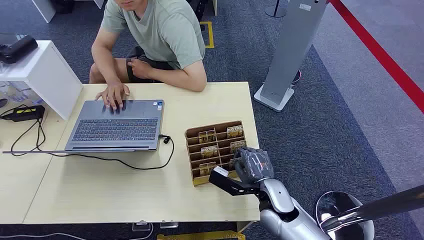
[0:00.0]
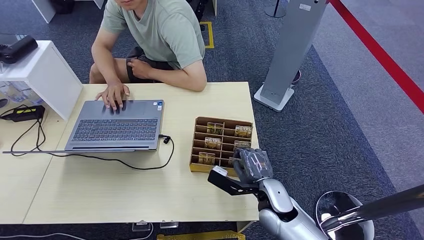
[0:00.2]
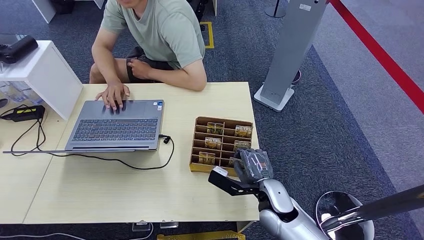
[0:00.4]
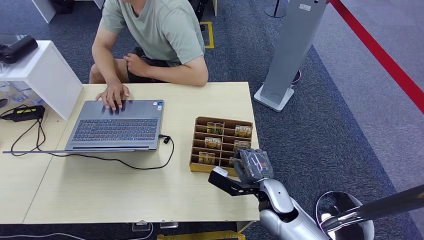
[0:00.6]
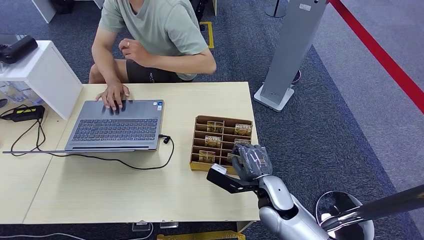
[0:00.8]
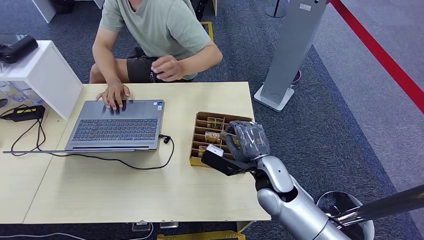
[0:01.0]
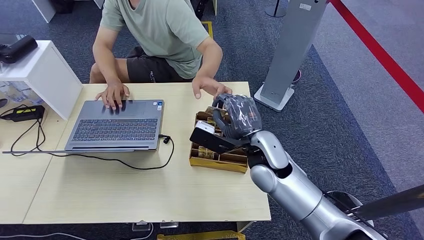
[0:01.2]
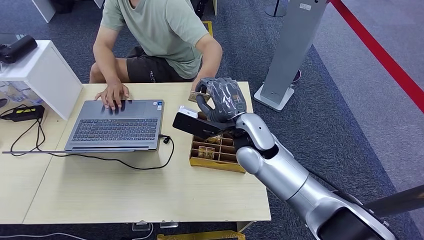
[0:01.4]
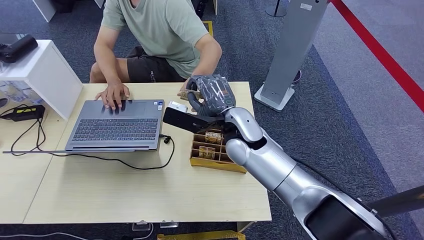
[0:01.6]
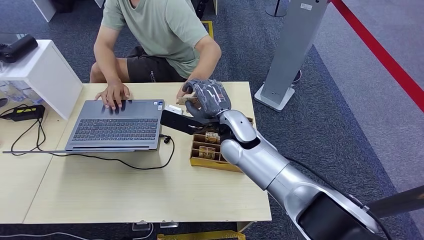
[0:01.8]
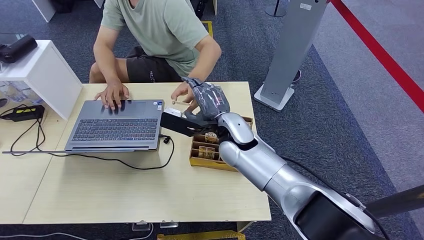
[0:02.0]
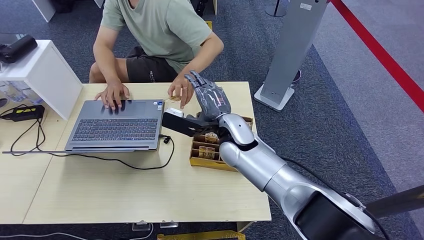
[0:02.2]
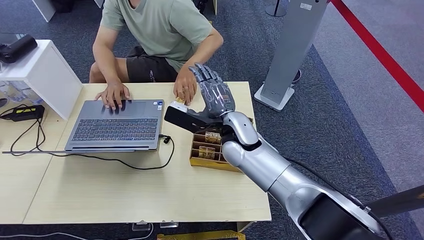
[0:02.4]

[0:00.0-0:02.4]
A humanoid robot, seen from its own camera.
Step, 0:00.0 to 0:01.0: Pick up the key card from the card box.
Step, 0:01.2 to 0:02.4: Hand the key card to the target.
0:01.2 to 0:02.4: The right hand heads to the left and forward, covering about 10 cm.

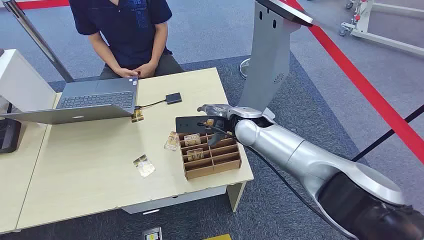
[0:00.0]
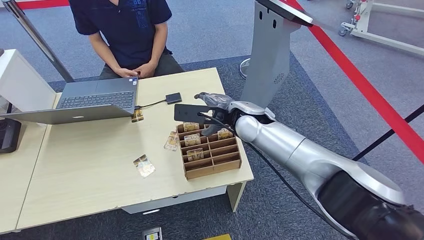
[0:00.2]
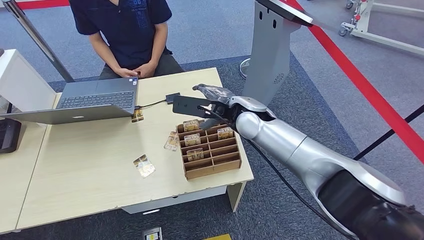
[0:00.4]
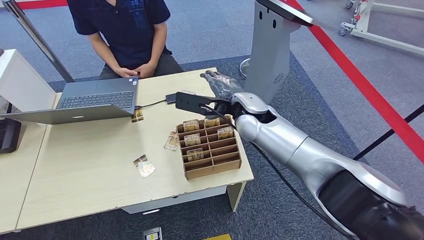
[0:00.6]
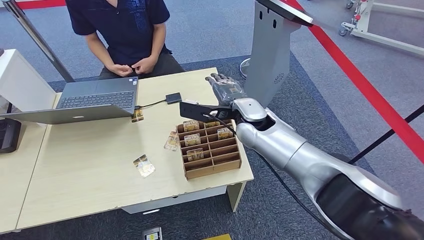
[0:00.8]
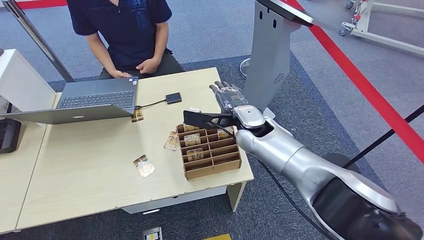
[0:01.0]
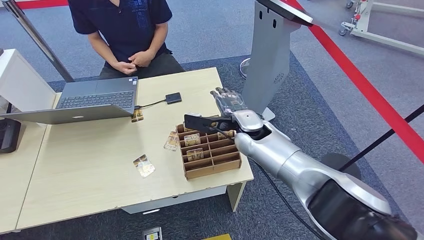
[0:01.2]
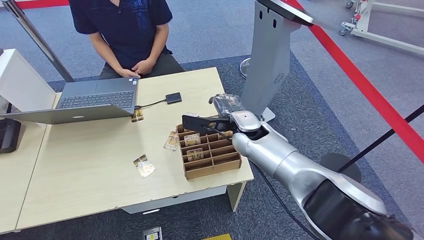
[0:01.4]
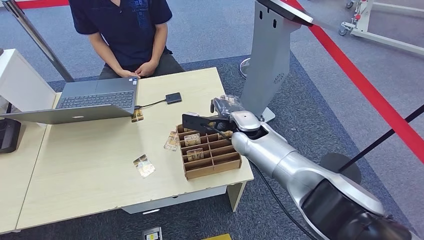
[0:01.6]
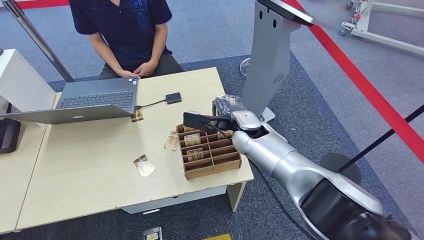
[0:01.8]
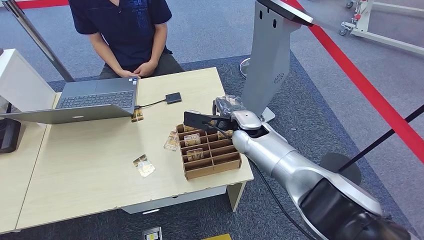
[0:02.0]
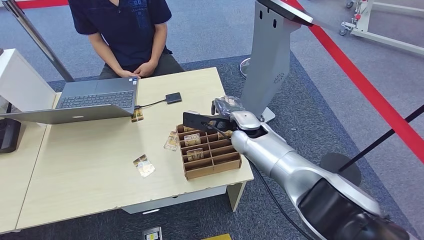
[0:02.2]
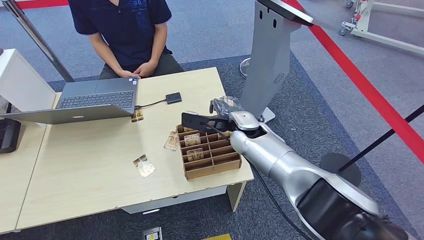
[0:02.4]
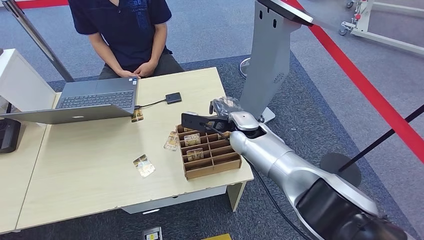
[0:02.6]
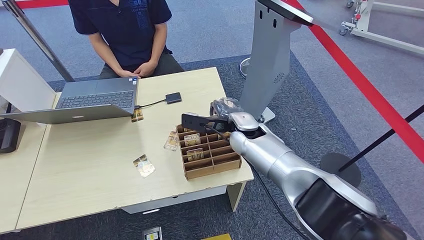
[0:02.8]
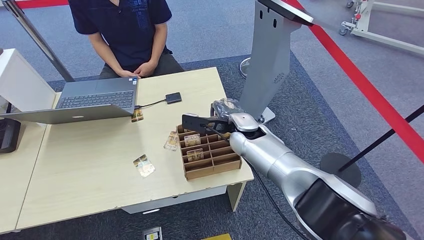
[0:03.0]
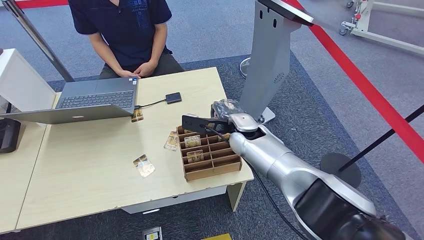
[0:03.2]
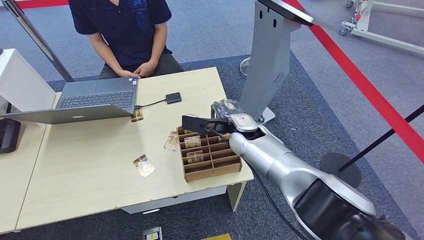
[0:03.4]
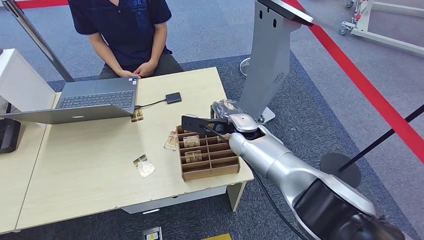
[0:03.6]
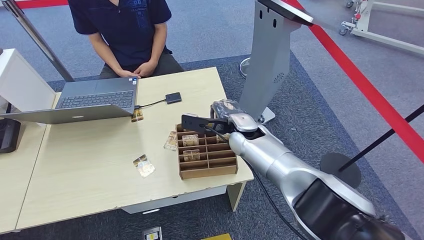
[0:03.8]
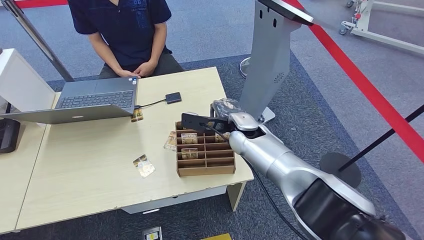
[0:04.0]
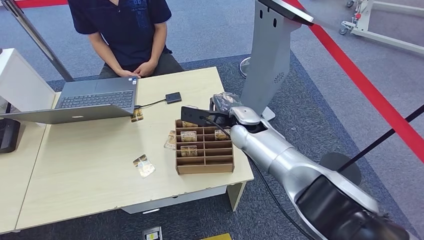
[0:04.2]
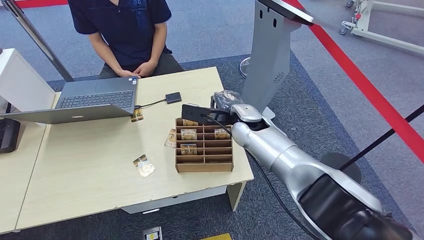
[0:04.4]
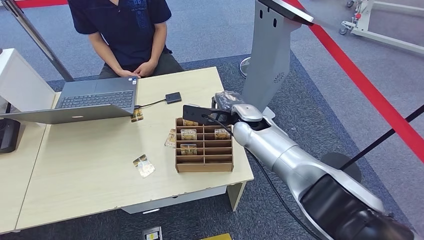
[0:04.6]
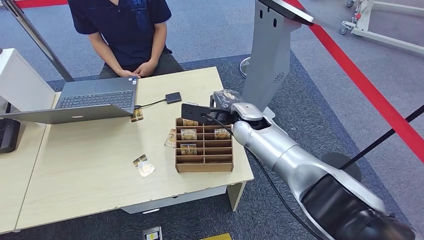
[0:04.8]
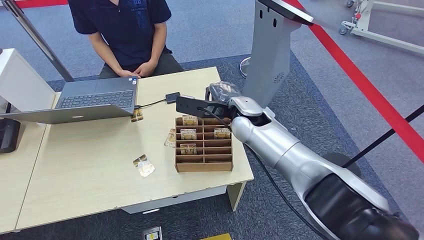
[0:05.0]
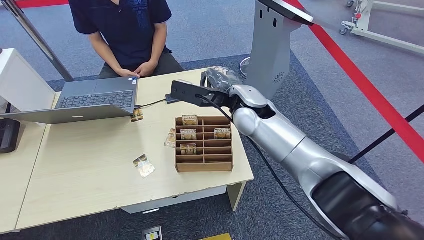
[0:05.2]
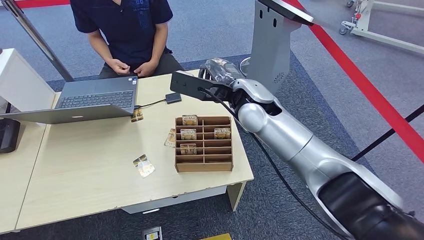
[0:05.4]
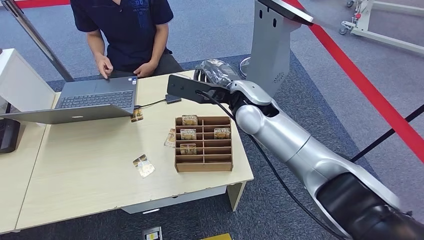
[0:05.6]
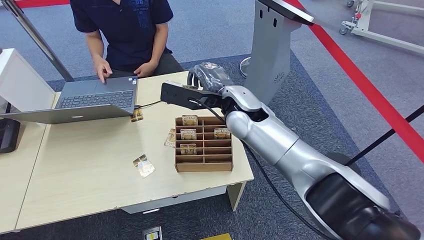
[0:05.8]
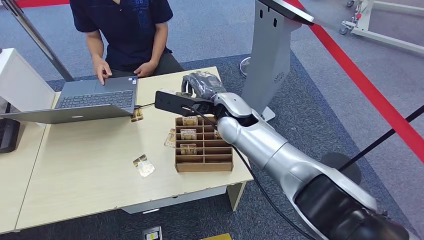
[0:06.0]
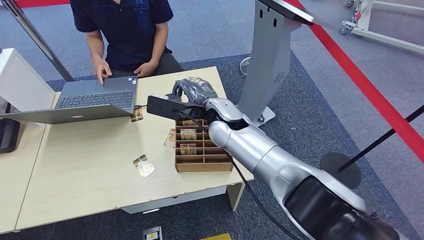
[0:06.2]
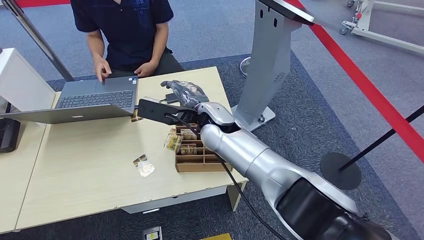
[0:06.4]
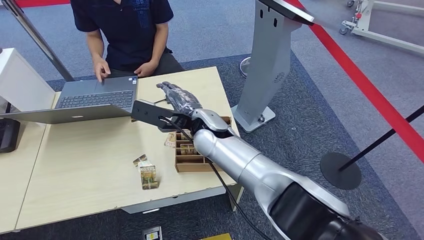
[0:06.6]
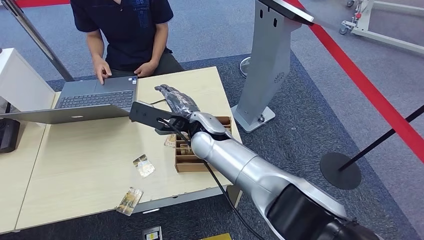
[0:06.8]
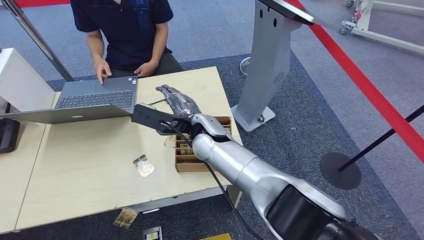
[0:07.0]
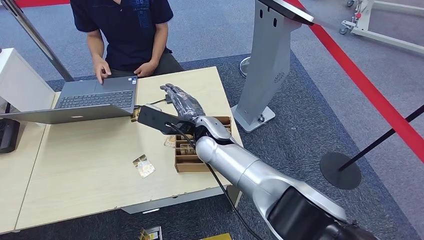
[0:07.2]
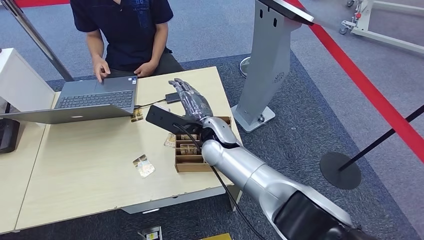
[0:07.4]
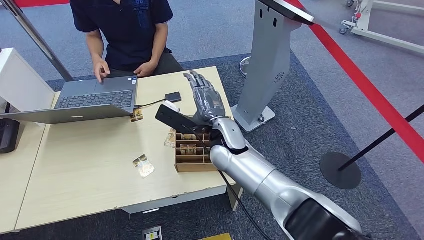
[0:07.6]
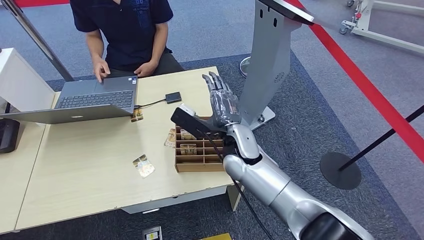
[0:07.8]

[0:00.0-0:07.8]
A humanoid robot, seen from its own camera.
Step, 0:00.0 to 0:05.2: Pick up the key card from the card box.
Step, 0:05.4 to 0:07.8: Hand the key card to the target.
0:01.6 to 0:03.2: The two hands keep their place.
0:03.2 to 0:04.6: The hands make only small movements.
0:04.6 to 0:06.2: The right hand heads to the left, covering some 5 cm.
0:06.2 to 0:07.8: The right hand moves downward and backward, about 10 cm.
